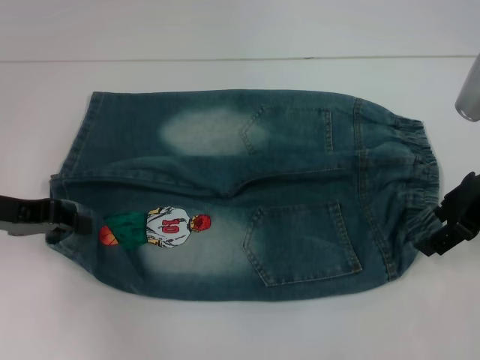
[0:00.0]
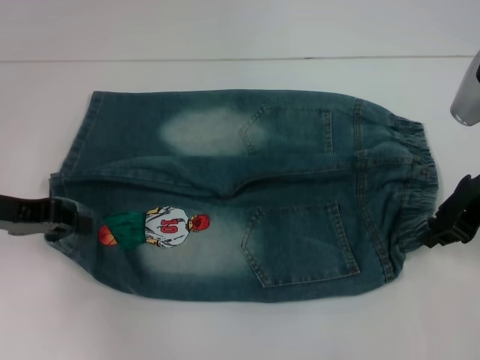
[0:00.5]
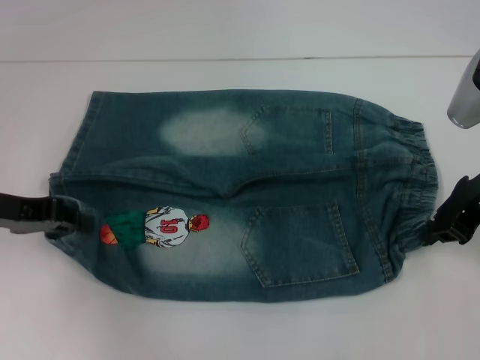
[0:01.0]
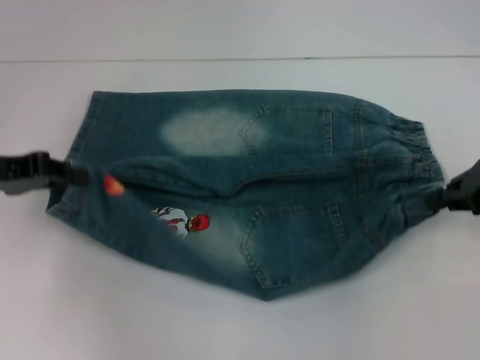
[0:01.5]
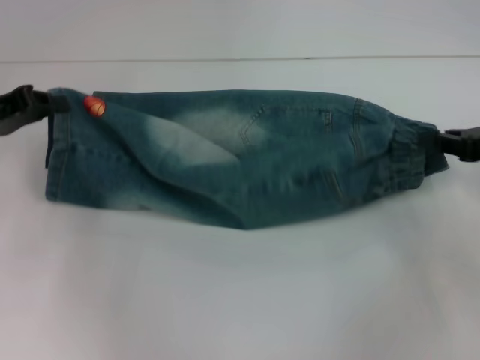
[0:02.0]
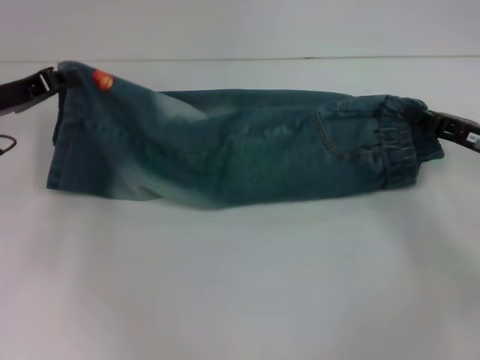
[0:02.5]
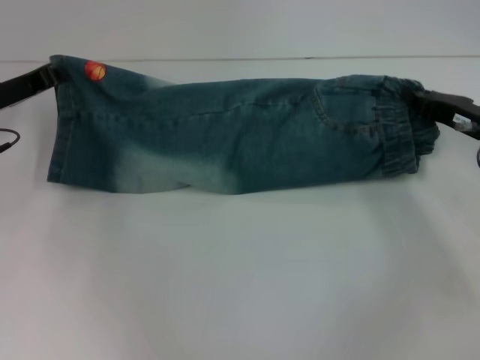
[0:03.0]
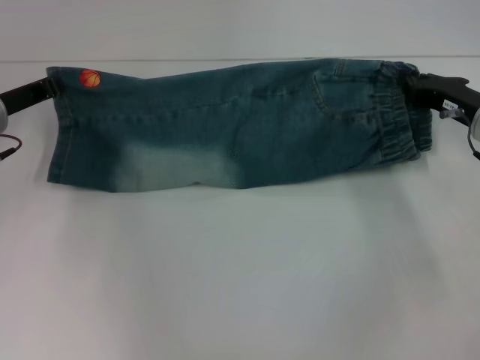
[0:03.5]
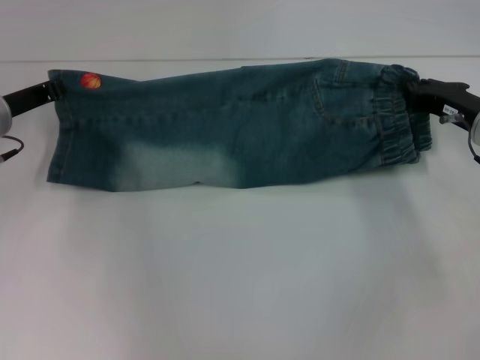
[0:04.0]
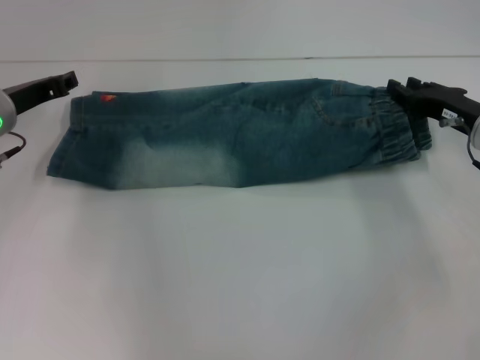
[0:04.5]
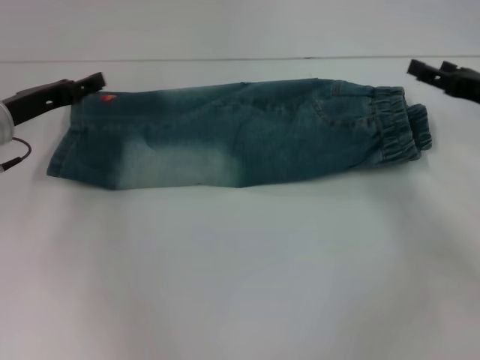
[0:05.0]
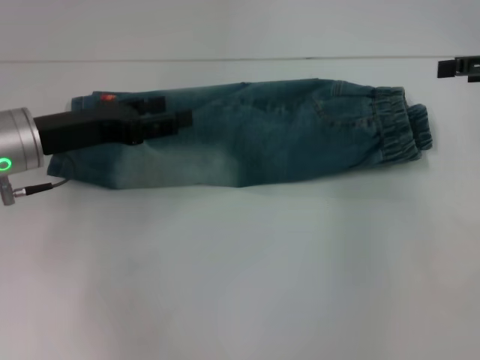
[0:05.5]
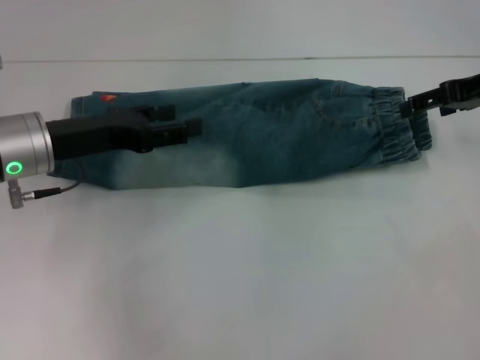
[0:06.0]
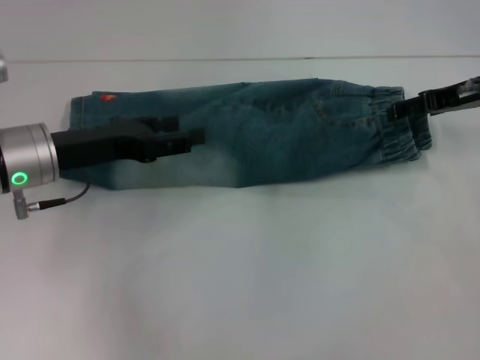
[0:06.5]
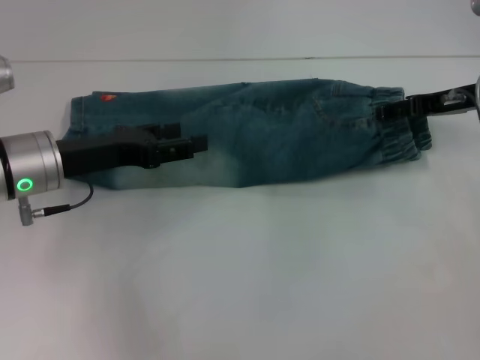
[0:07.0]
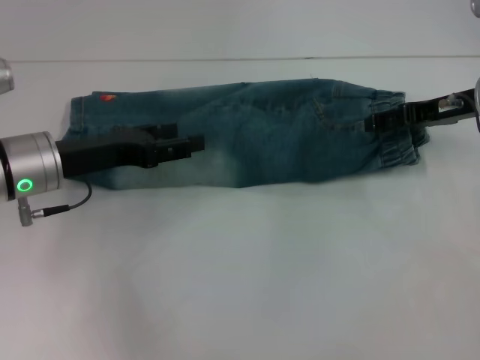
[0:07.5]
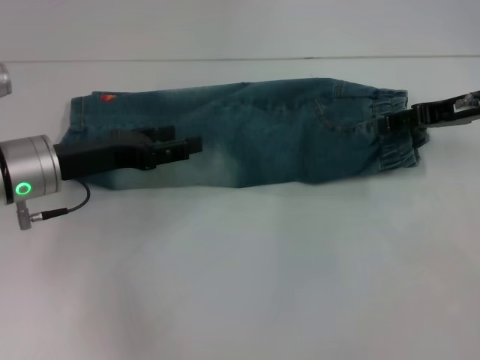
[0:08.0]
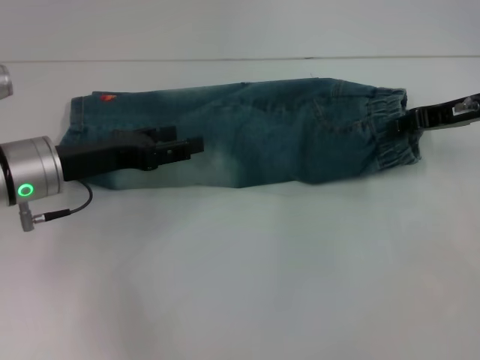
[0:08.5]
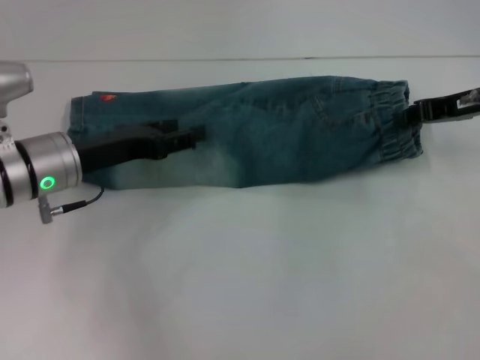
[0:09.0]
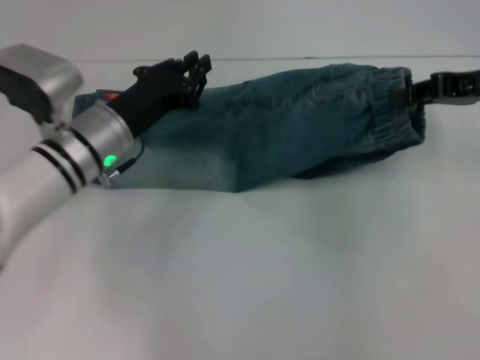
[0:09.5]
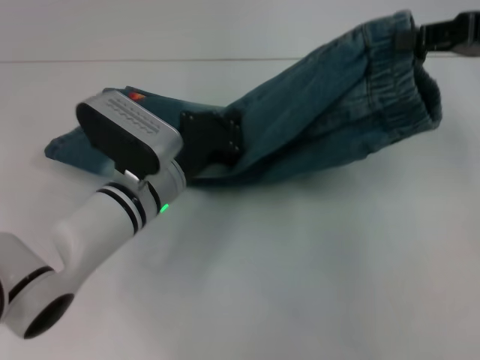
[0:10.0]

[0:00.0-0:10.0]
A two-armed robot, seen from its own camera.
Step, 0:01.0 to 0:04.0: Fold upward with your right hand.
Step, 0:04.5 to 0:08.0: Grab the waistband with your right hand.
0:00.0 to 0:02.0: The right gripper moves to the right, roughly 5 cm, and closes its fingers.
0:02.0 to 0:04.0: The left gripper moves roughly 10 cm, while the right gripper heads to the left, forward and downward, covering some 10 cm.
0:04.0 to 0:06.0: The right gripper heads upward, covering roughly 10 cm, and opens. Meanwhile the left gripper is displaced backward by roughly 5 cm, and opens up.
0:08.0 to 0:10.0: The left gripper travels to the right and downward by approximately 15 cm, and closes. The right gripper is displaced upward by approximately 10 cm, and closes its fingers.

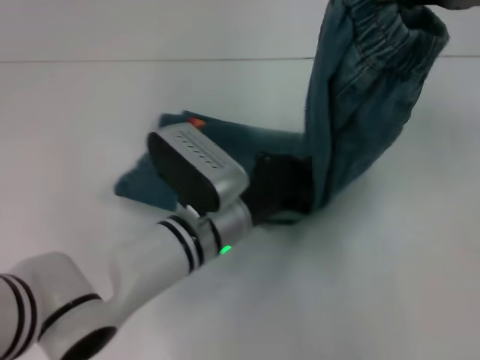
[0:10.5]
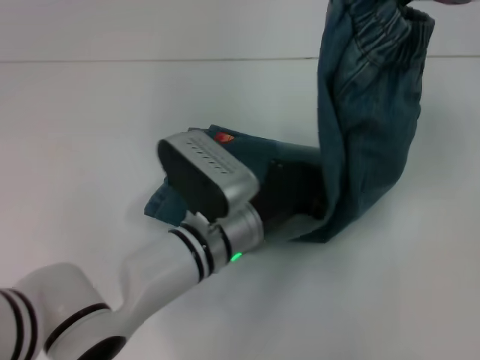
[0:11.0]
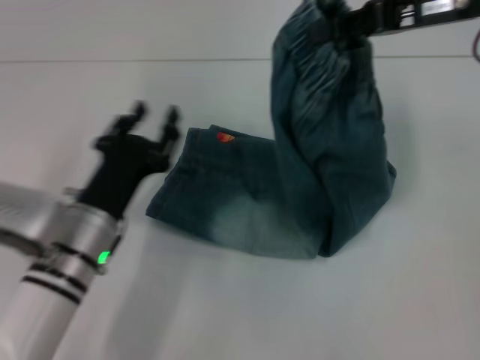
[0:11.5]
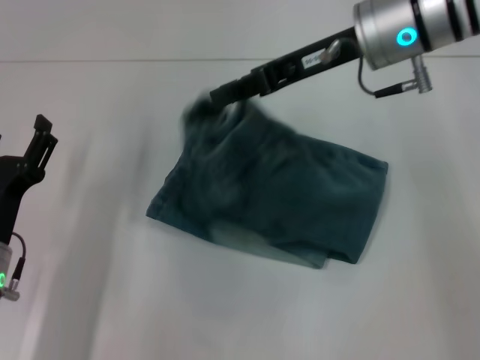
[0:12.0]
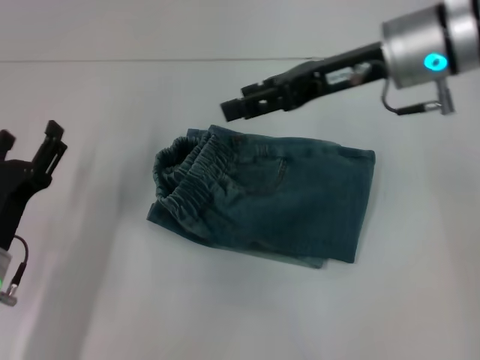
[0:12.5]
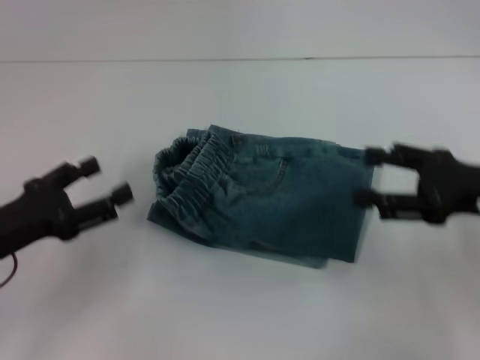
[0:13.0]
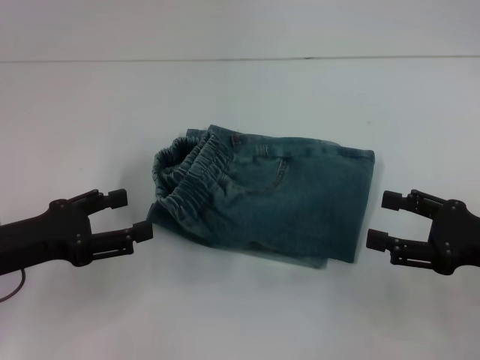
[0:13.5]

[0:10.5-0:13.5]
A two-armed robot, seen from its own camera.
Step, 0:11.5 to 0:12.0: Fold to the left with your right hand.
0:10.5 to 0:12.0: Both grippers travel together to the left, approximately 15 cm. The left gripper opens up.
0:12.0 to 0:13.5: The right gripper goes approximately 30 cm to the right, backward and downward, and opens up; the left gripper travels upward by some 5 cm.
